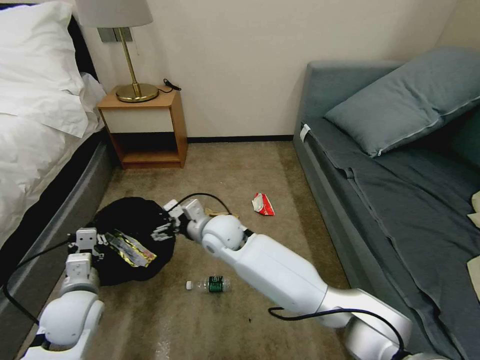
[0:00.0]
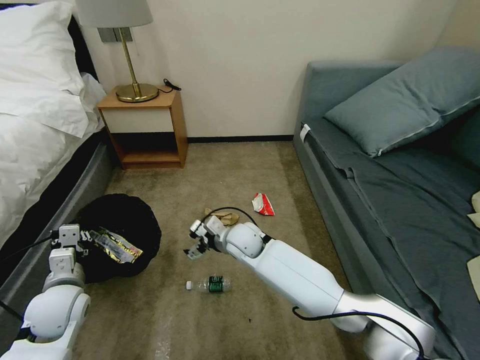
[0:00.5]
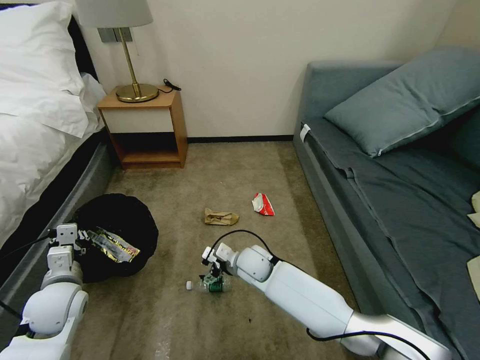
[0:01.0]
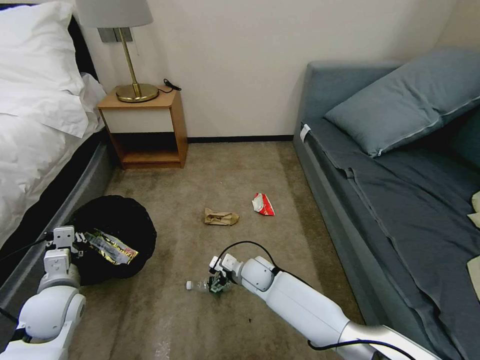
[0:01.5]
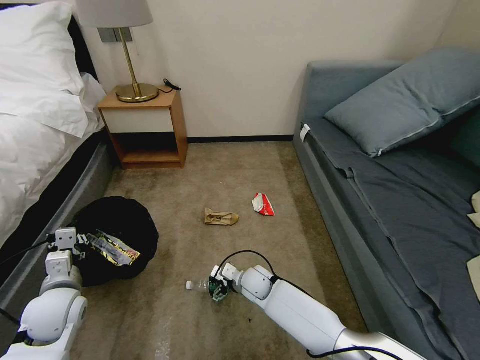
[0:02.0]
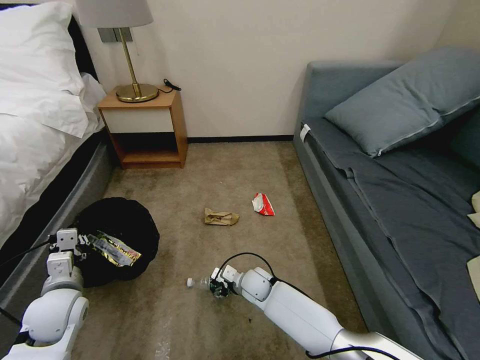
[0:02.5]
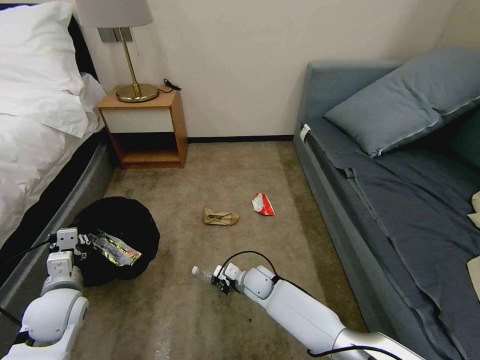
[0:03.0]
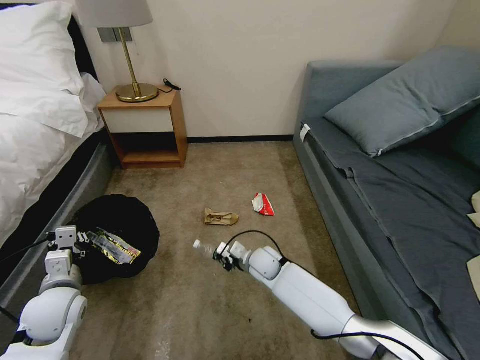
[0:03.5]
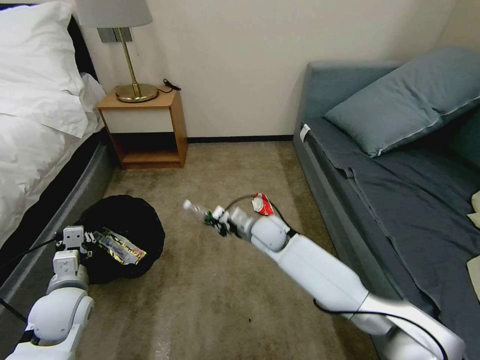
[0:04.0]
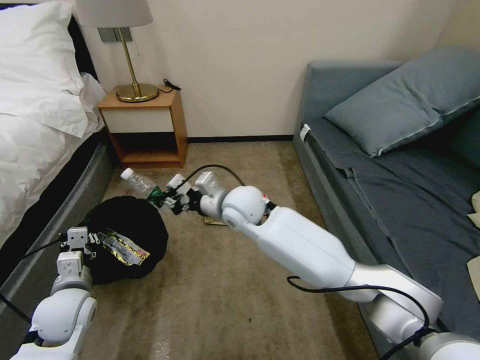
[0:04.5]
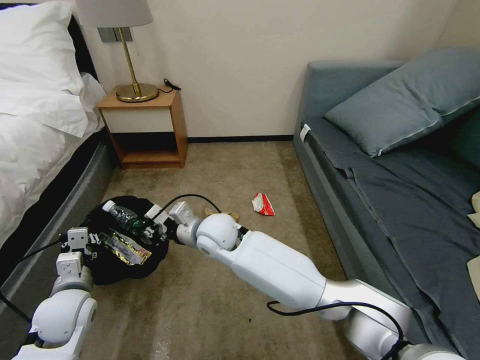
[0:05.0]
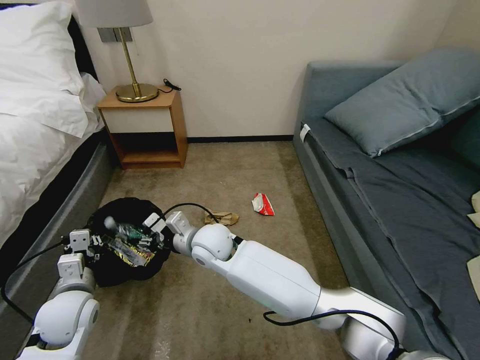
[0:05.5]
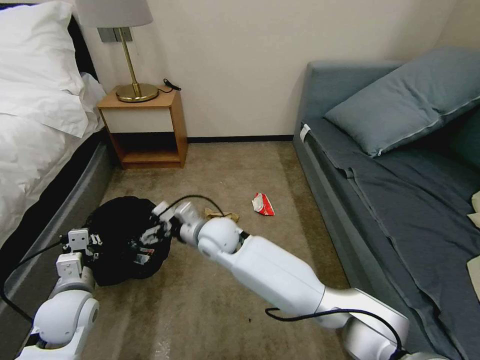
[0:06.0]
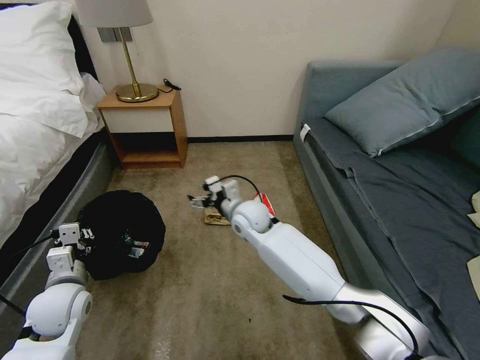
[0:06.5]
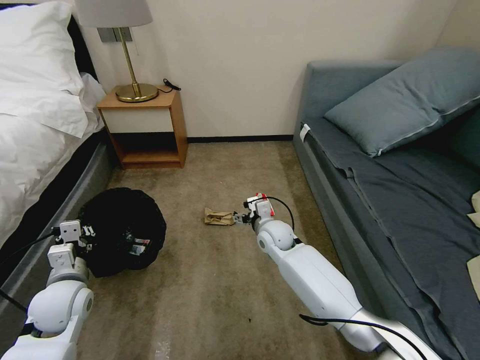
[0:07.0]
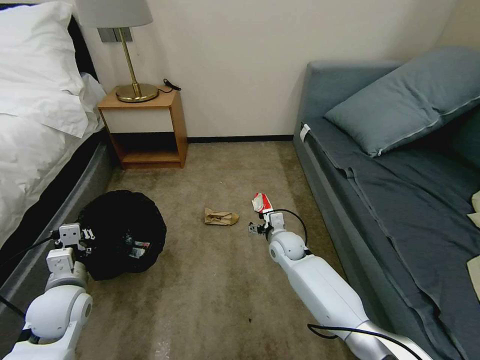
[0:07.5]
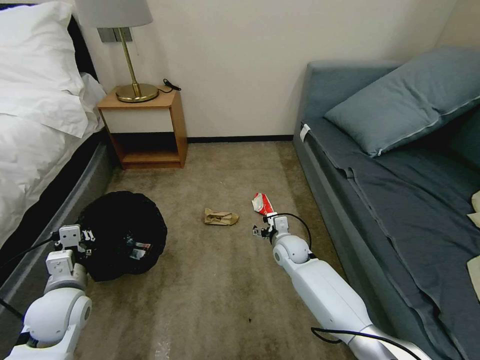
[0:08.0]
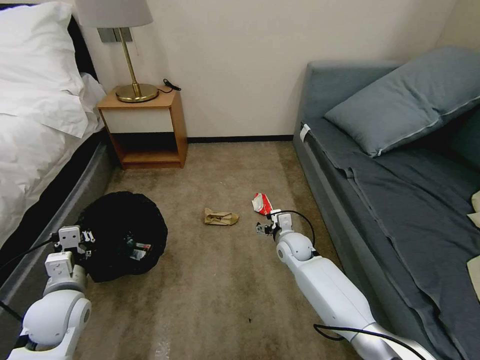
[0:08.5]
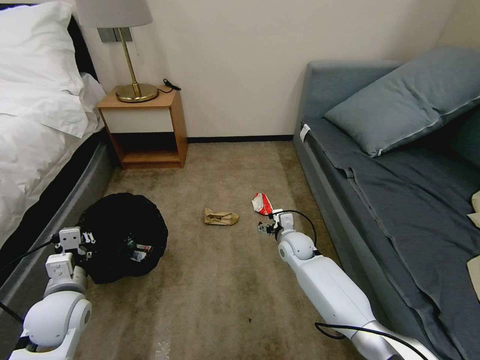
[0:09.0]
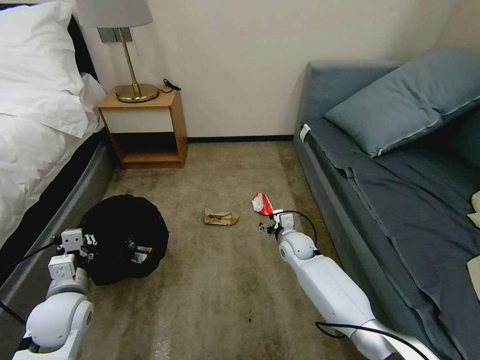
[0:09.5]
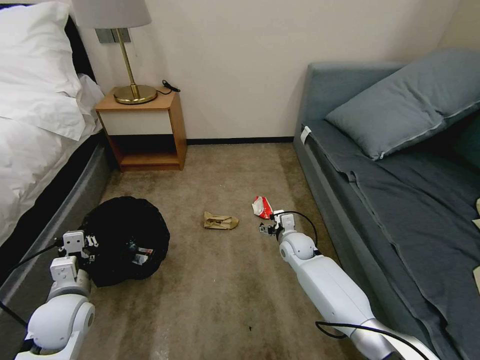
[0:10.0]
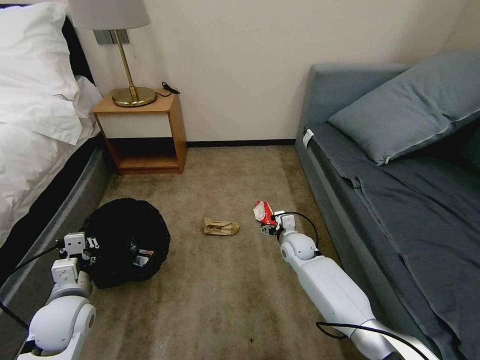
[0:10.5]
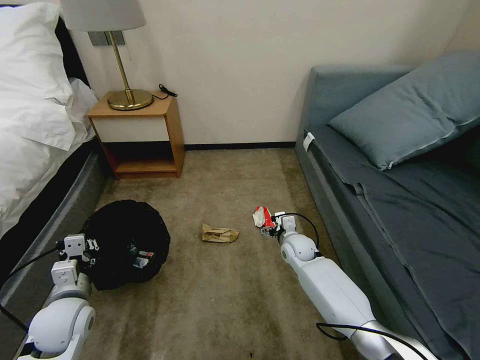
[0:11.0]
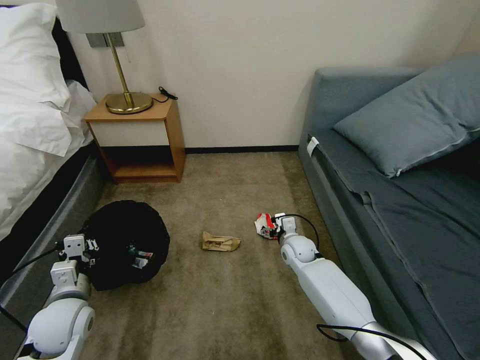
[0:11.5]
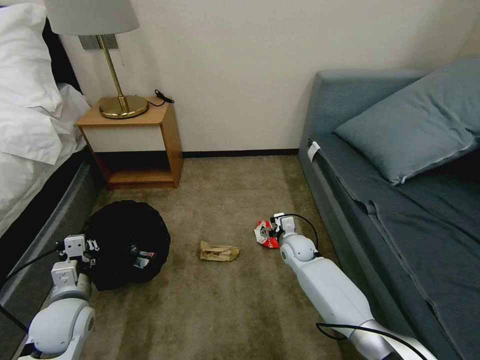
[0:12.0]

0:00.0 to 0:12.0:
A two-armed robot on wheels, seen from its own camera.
Task of the whole recording: Pick up the trash bin, then pick up the garbage on the floor and place it into the trash bin.
0:00.0 to 0:02.0: The right gripper travels downward and to the right by approximately 25 cm.
0:02.0 to 0:04.0: The right gripper goes roughly 20 cm upward and forward, and closes.
0:04.0 to 0:06.0: The right gripper moves to the left, roughly 15 cm, and opens its fingers.
0:06.0 to 0:08.0: The right gripper moves to the right and downward, approximately 25 cm.
0:08.0 to 0:10.0: The grippers make only small movements.

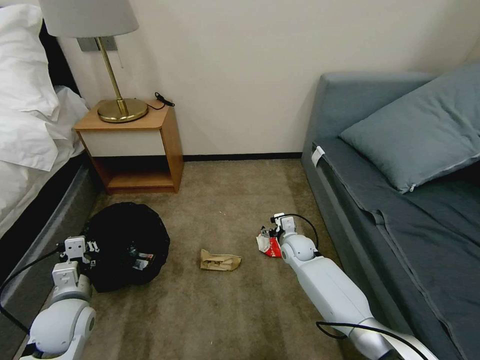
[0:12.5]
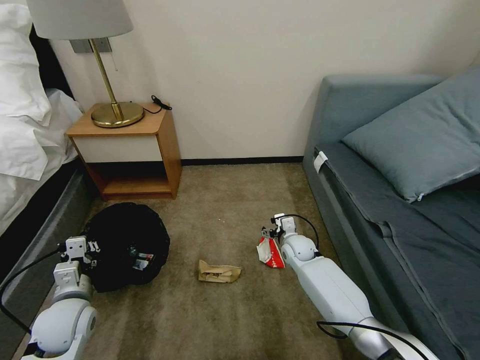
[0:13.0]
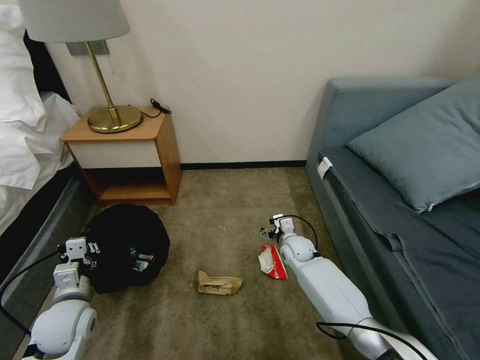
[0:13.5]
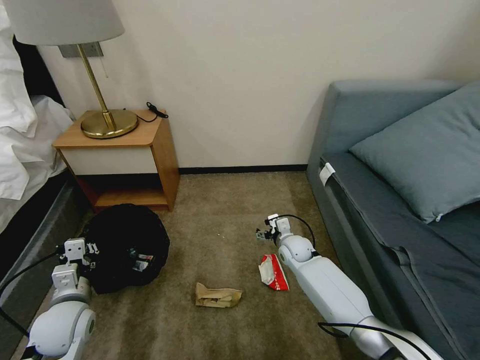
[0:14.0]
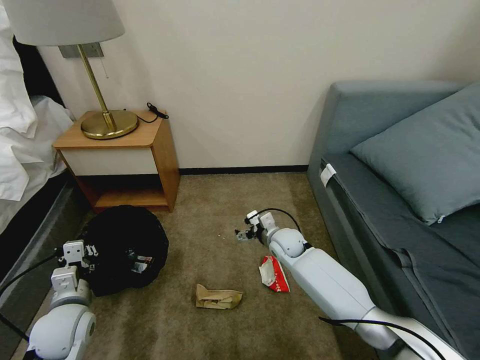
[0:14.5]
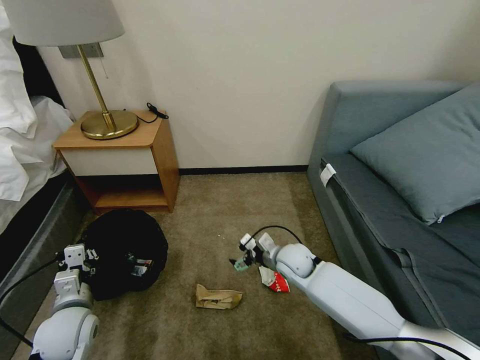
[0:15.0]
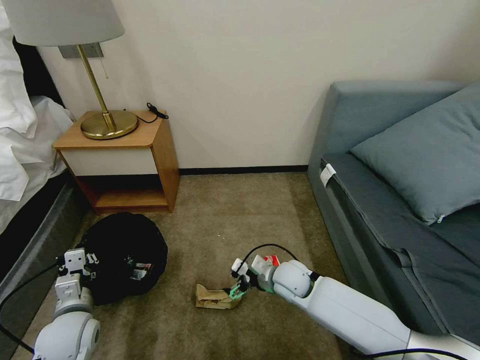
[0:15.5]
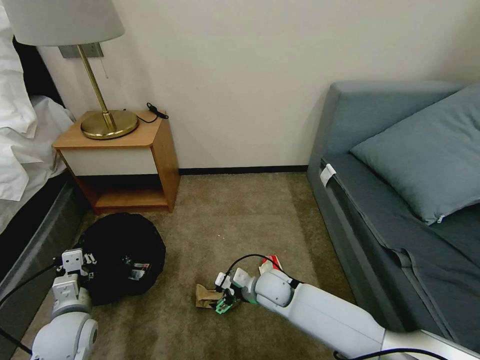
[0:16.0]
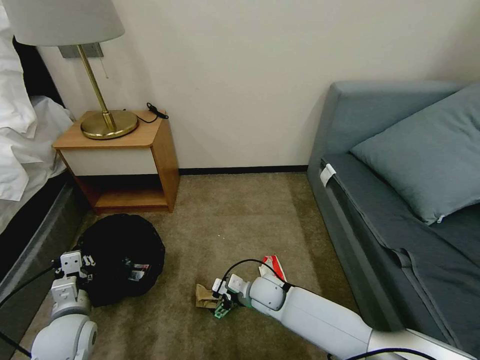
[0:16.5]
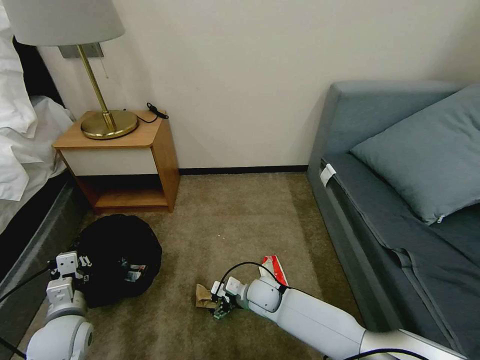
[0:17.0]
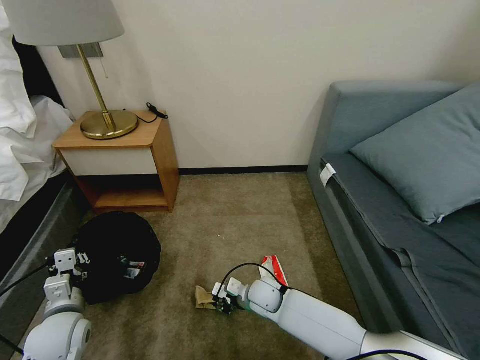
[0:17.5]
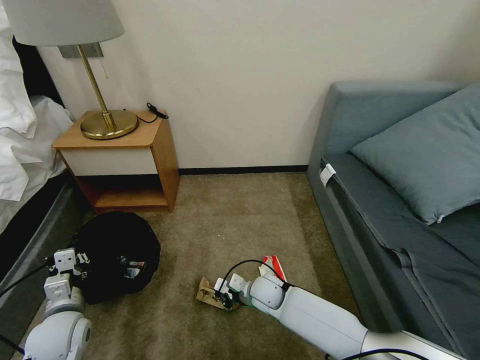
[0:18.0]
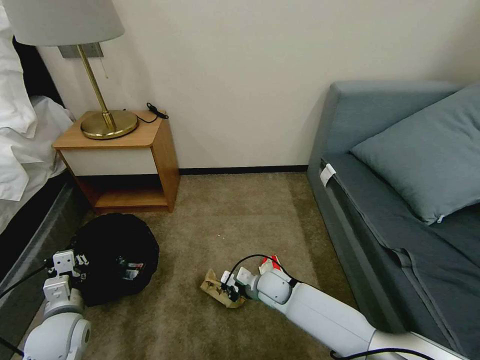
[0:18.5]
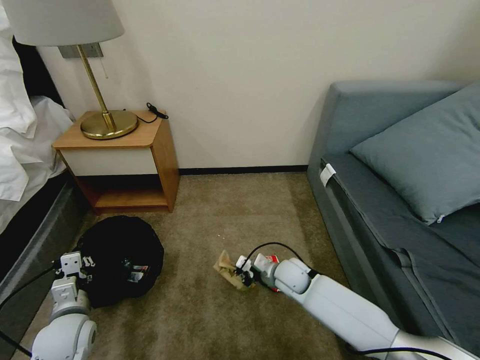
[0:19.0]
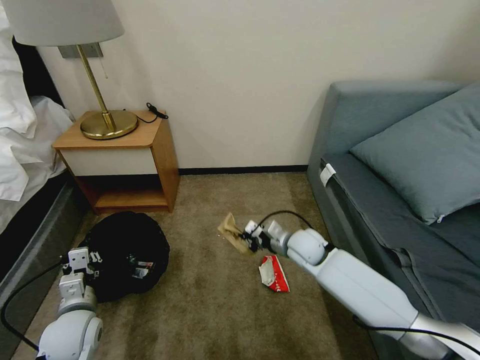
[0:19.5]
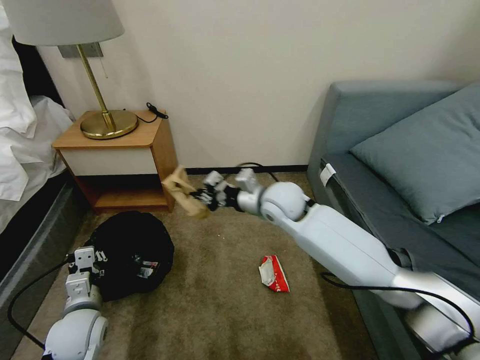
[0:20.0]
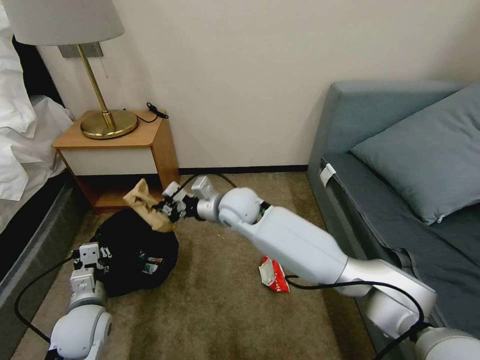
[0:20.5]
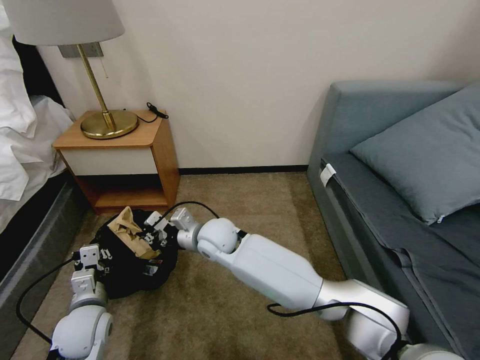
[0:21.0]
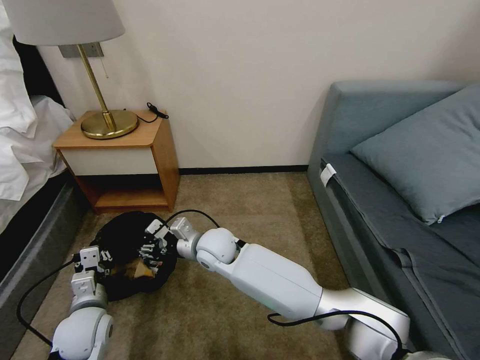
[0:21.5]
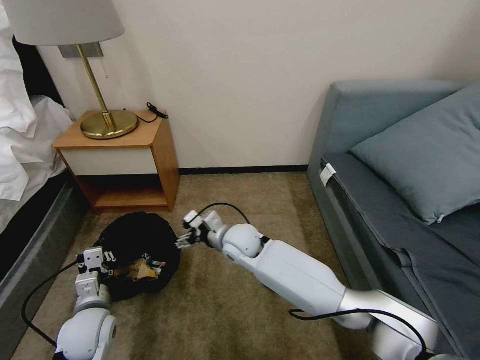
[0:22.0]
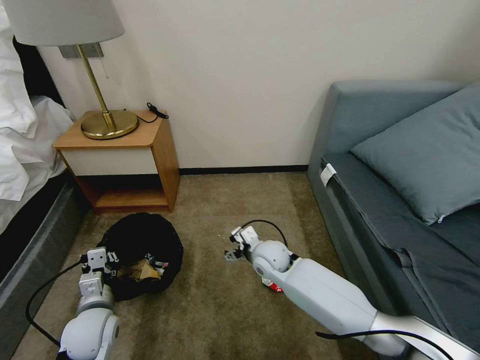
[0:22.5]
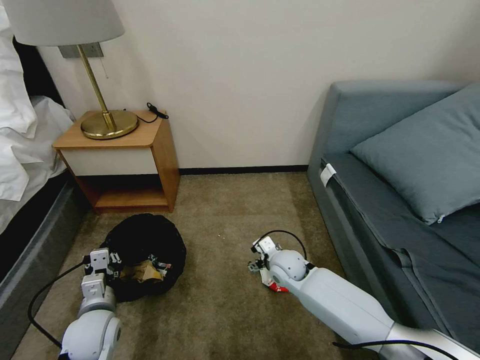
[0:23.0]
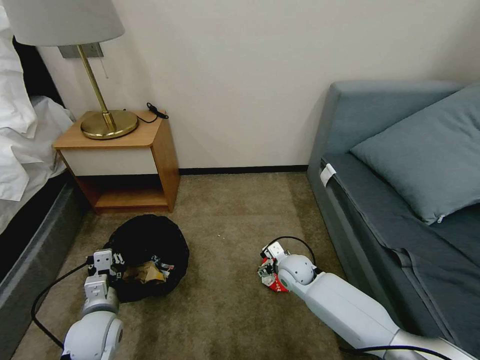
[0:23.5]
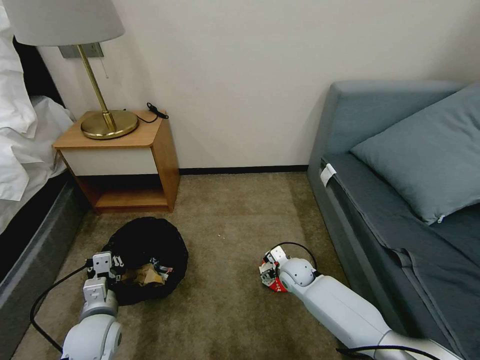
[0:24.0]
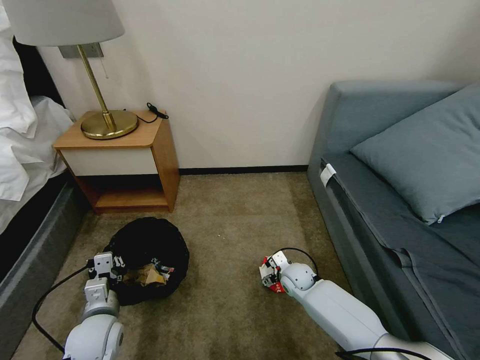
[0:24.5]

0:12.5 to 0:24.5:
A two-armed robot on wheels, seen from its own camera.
Task of the whole recording: Pick up the trash bin, then pick up the garbage on the floor and place it into the trash bin.
0:12.5 to 0:14.5: The right gripper shifts by roughly 5 cm.
0:14.5 to 0:16.5: The right gripper heads backward, downward and to the left, covering some 15 cm.
0:16.5 to 0:18.5: The right gripper closes.
0:18.5 to 0:20.5: The right gripper goes roughly 25 cm upward and to the left.
0:20.5 to 0:22.5: The right gripper is displaced downward and to the right by about 15 cm, and opens up.
0:22.5 to 0:24.5: The right gripper travels downward and to the right by about 15 cm.

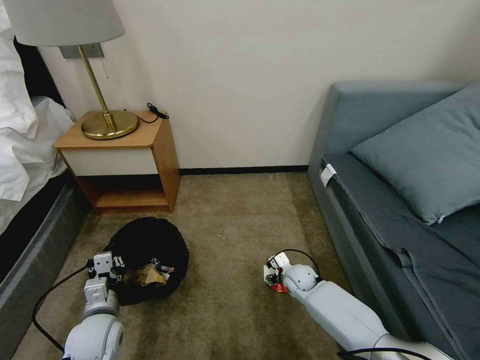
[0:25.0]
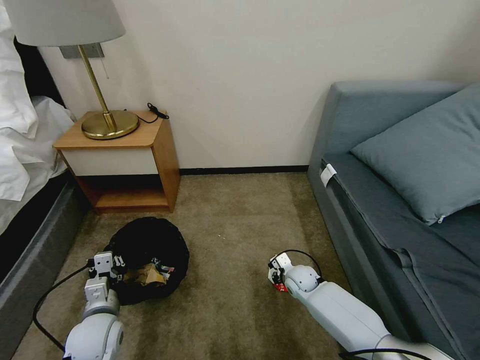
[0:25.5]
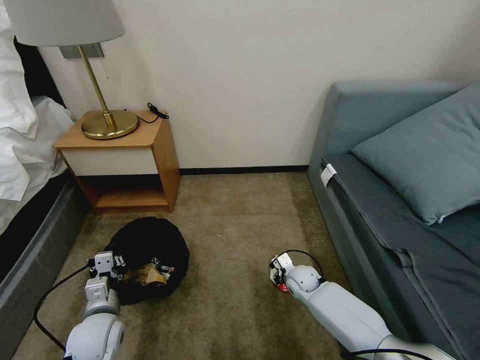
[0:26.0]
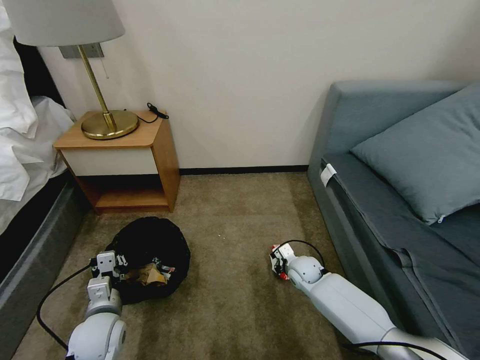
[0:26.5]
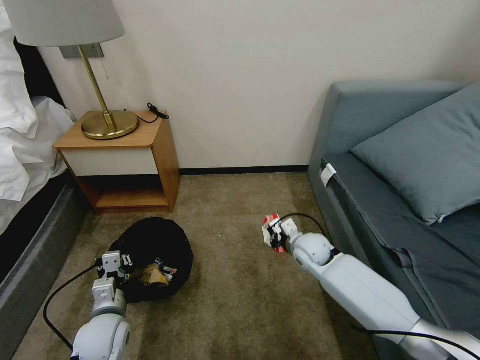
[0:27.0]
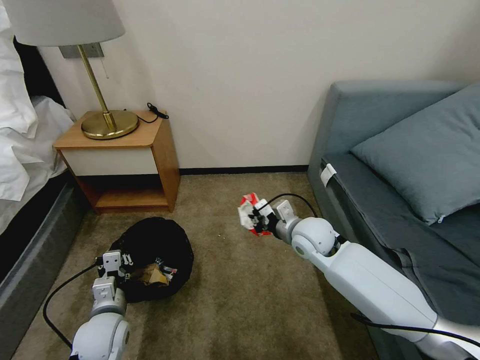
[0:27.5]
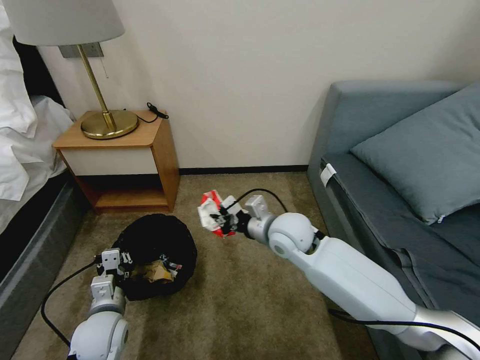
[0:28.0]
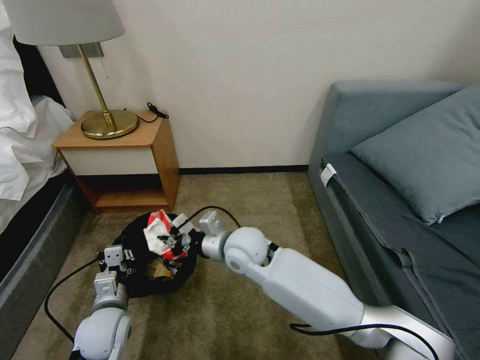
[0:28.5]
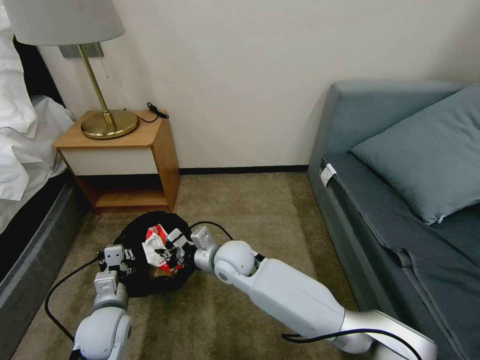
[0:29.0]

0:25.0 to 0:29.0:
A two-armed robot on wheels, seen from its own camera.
Task of the whole recording: Pick up the trash bin, then pick up the garbage on the floor and place it into the trash bin.
0:25.0 to 0:27.0: The right gripper travels upward by approximately 10 cm, and closes up.
0:27.0 to 0:29.0: The right gripper travels to the left by roughly 20 cm.
